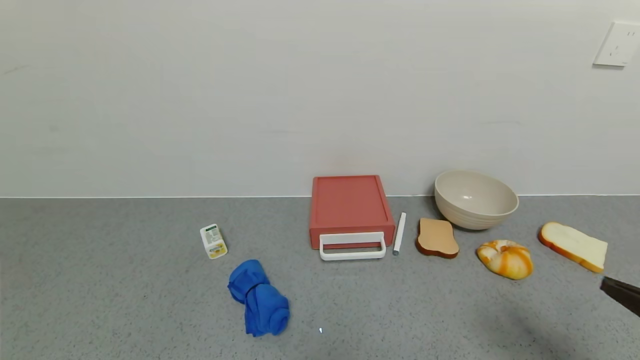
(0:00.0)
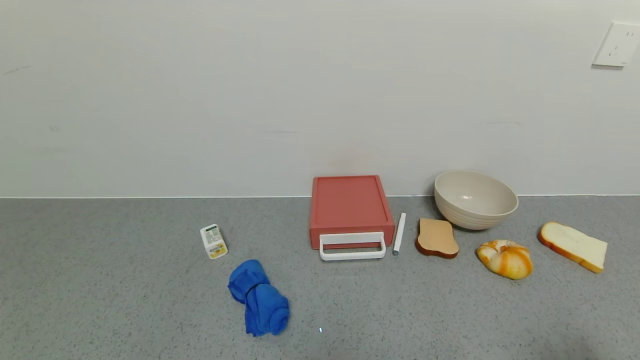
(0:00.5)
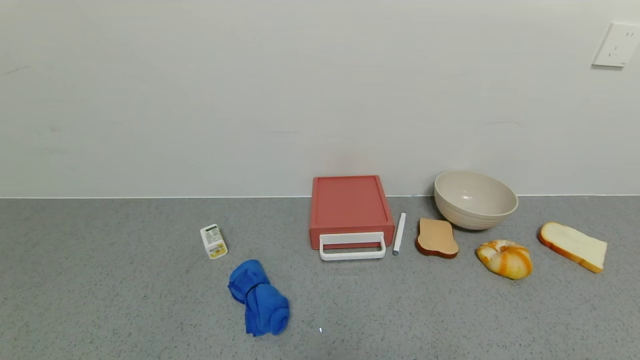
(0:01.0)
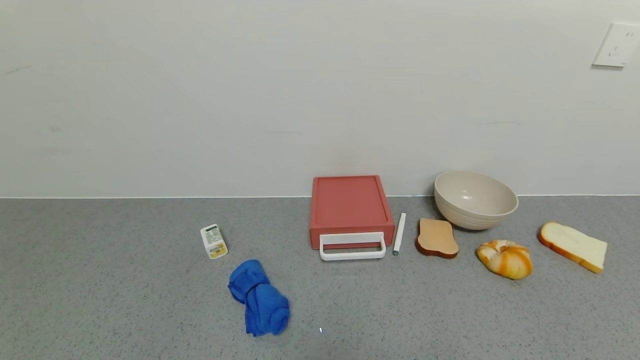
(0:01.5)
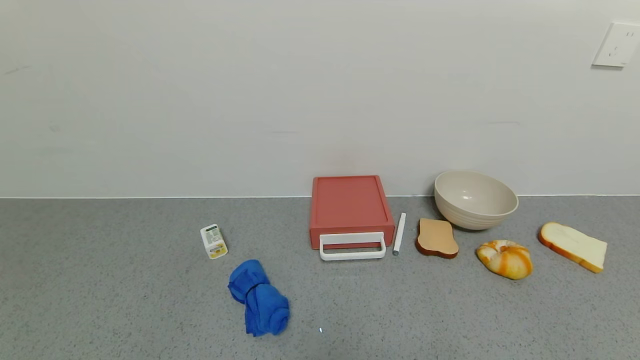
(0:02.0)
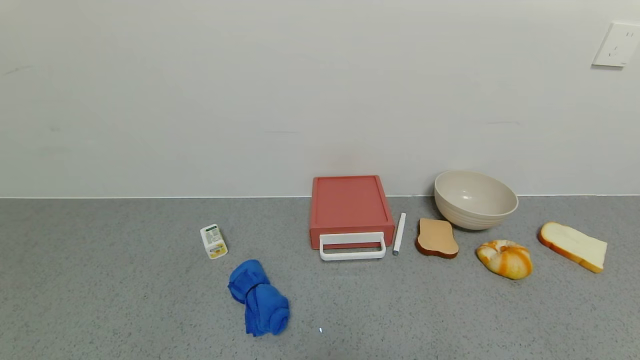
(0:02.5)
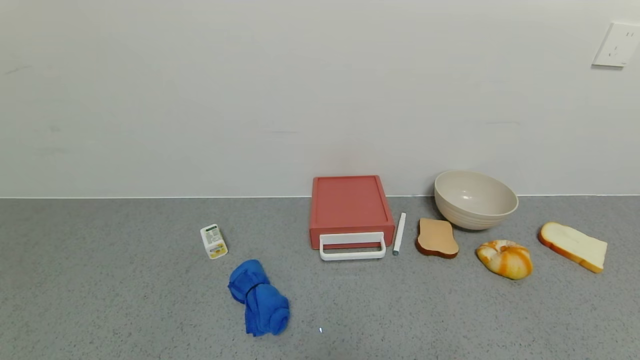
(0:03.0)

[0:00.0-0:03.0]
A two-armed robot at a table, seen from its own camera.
Task of the whole recording: use the gripper to open the drawer and close the red drawer.
0:00.0 to 0:01.5: The right gripper moves backward and downward, approximately 15 cm.
